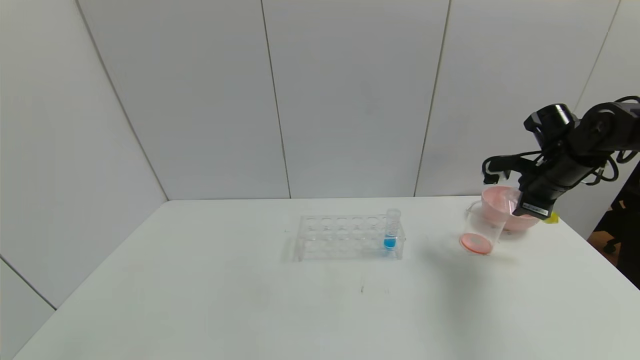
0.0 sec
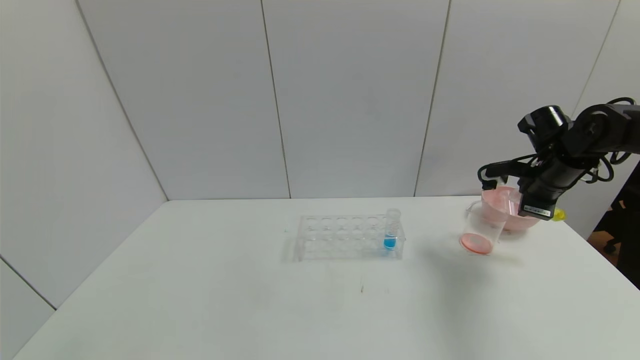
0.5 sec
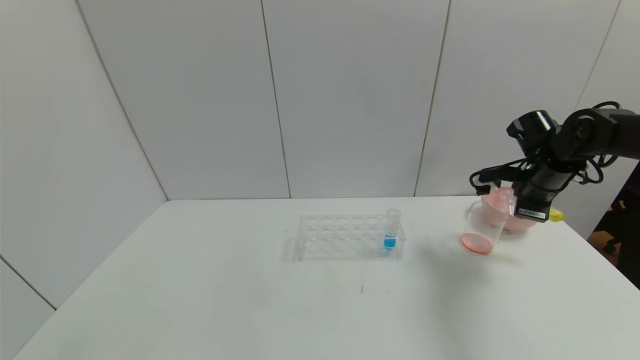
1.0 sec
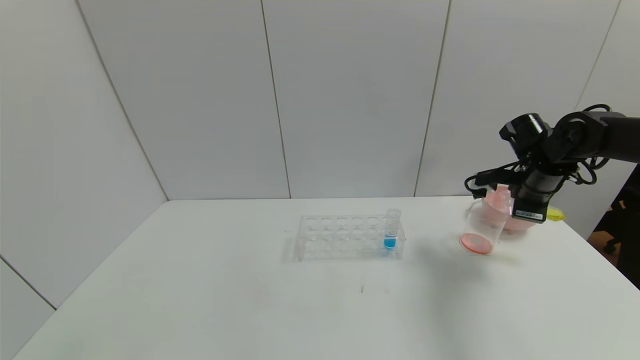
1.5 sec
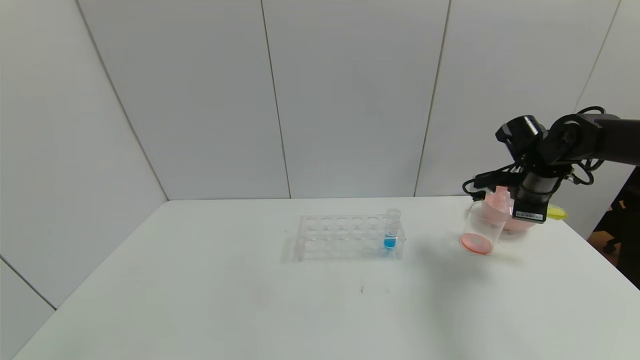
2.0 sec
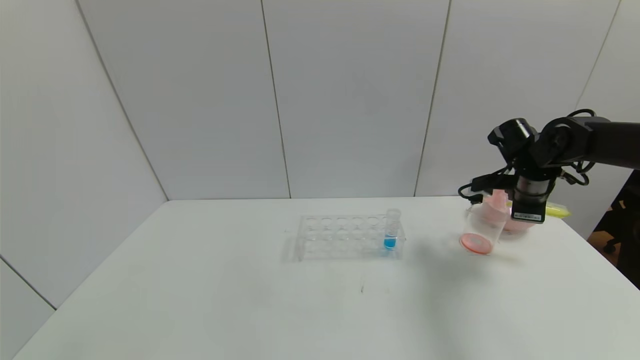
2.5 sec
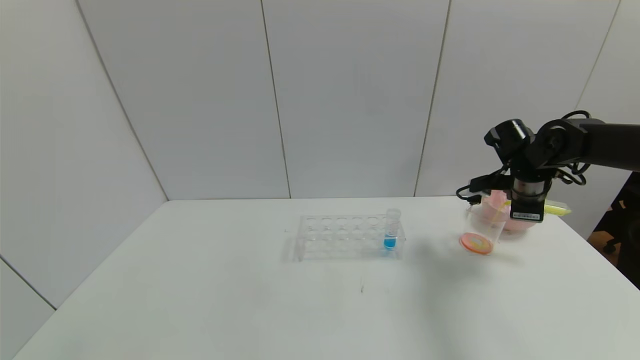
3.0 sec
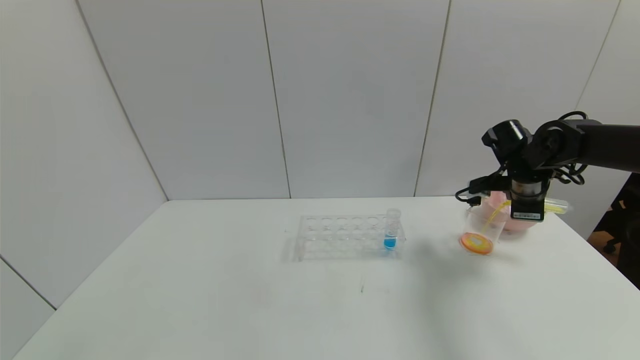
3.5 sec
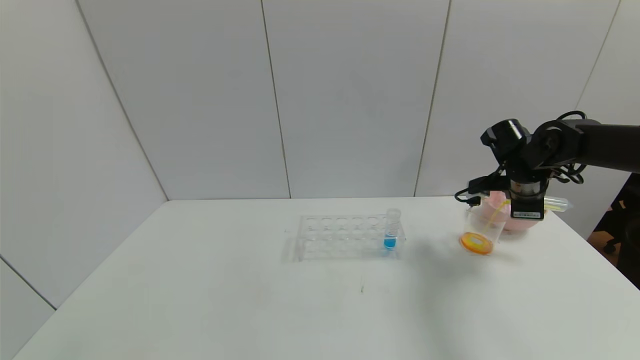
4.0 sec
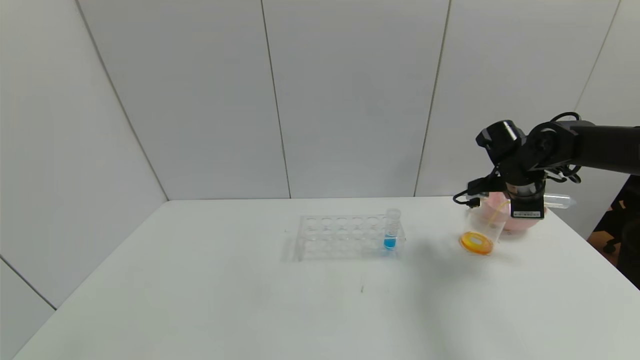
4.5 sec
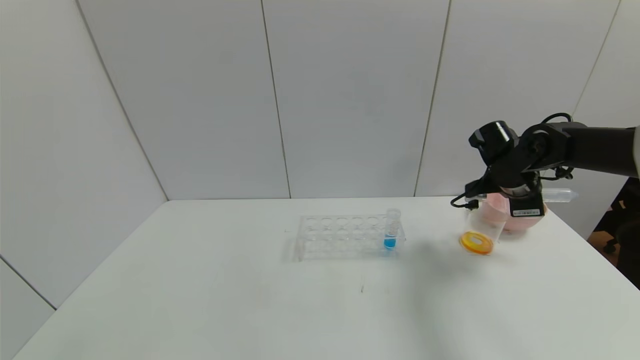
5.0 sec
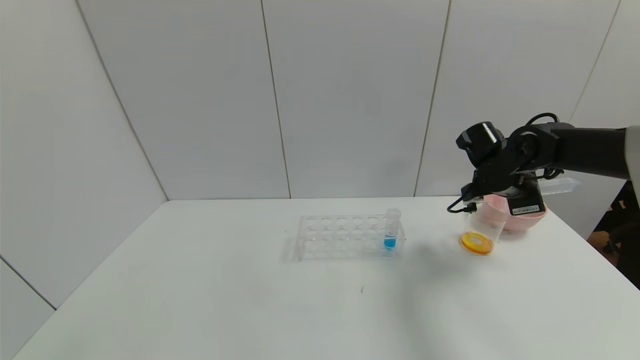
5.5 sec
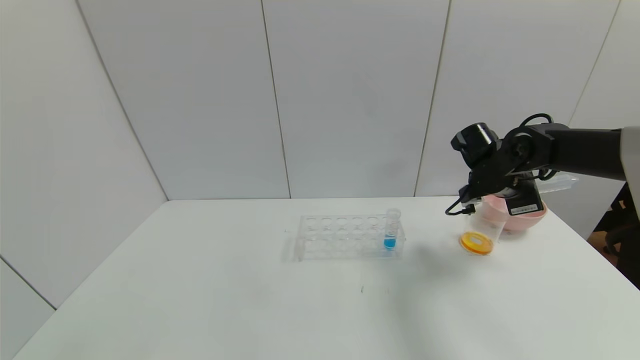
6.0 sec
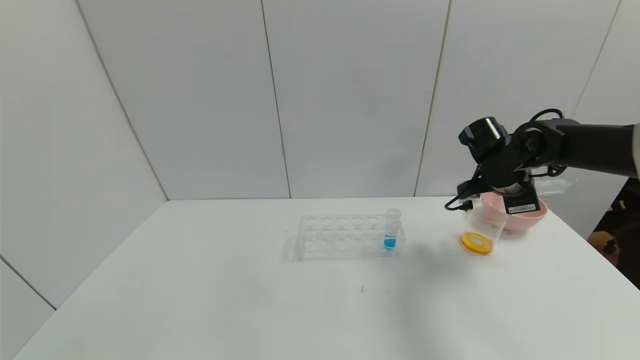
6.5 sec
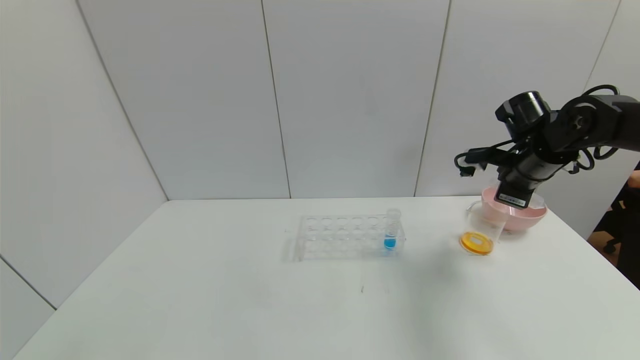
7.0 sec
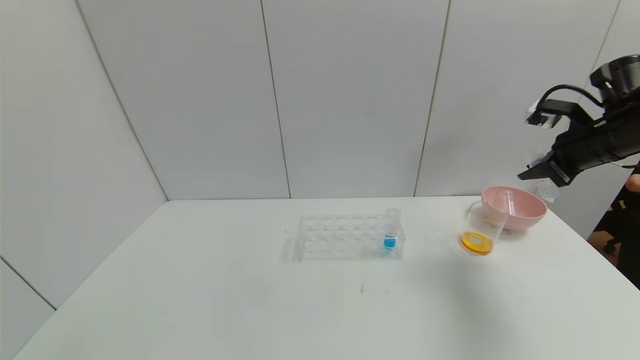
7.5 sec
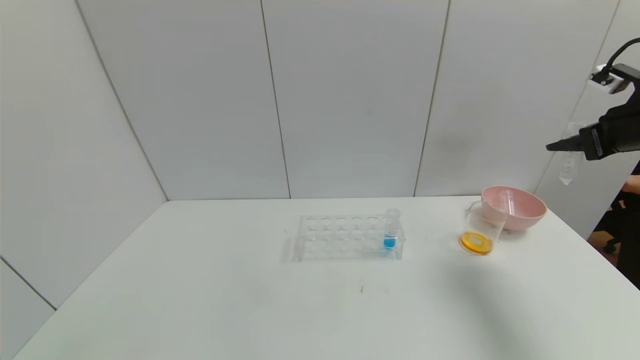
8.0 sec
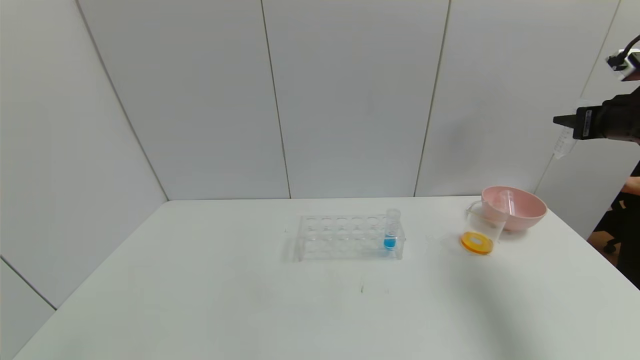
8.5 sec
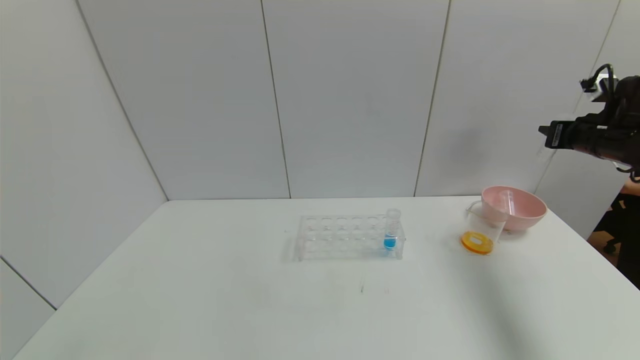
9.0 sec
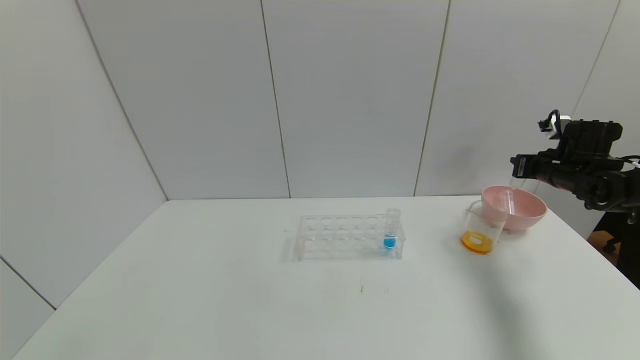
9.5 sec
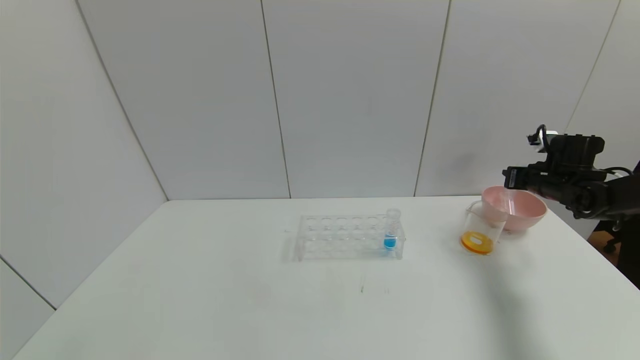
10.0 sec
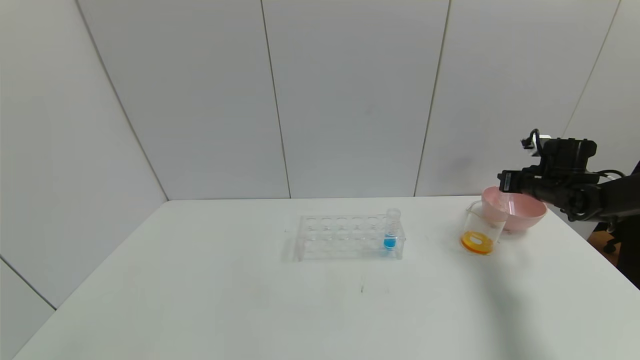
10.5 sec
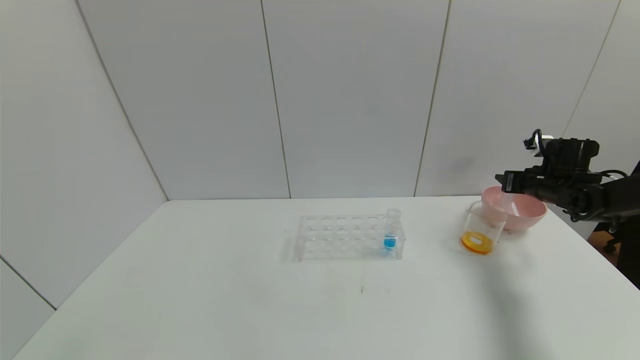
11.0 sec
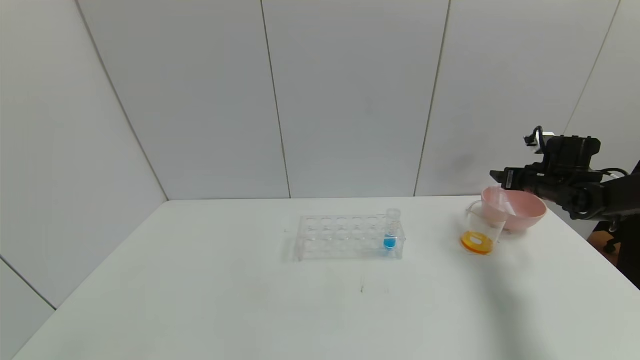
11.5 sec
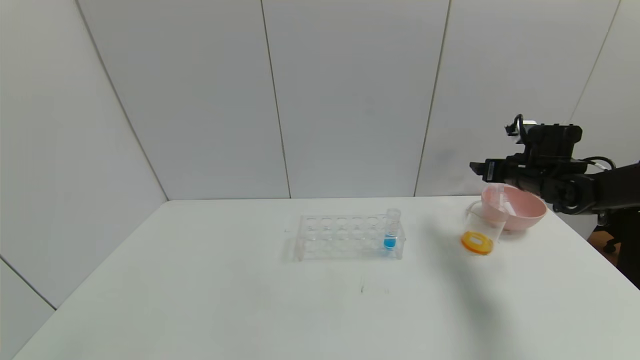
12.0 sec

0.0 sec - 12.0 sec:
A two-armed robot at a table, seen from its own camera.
Task of the whole recording: pick up the test tube with yellow pigment and the test tube with red pigment by grippers and pour them into the beaker.
Step, 0.0 sec - 5.5 sec: Pour the yellow reagent into the graduated cylinder with the right gripper.
Step, 6.0 sec - 11.0 sec: Place the test tube into the bowl with the right gripper.
0.0 sec - 2.0 sec: There are only small adjustments of the grippers.
2.0 sec - 4.0 sec: The grippers stay close to where they were, moving slightly.
6.0 sec - 8.0 sec: The right gripper shifts approximately 20 cm to the right, upward and backward.
8.0 sec - 10.0 sec: The right gripper travels downward and forward by some 20 cm.
10.0 sec - 12.0 sec: The right gripper heads to the left, covering roughly 5 cm, and opens.

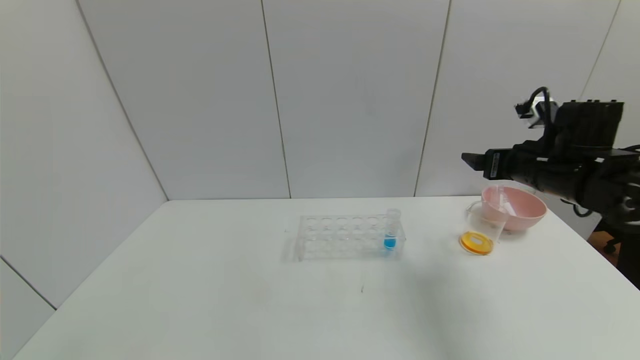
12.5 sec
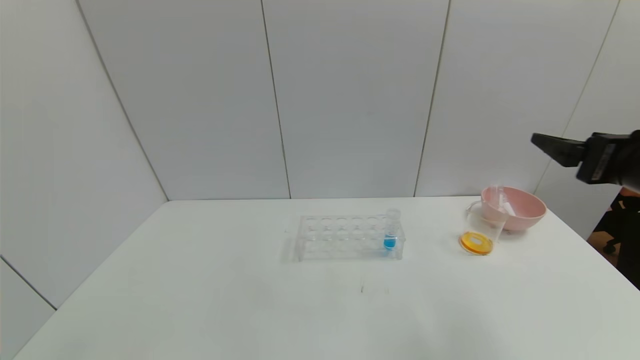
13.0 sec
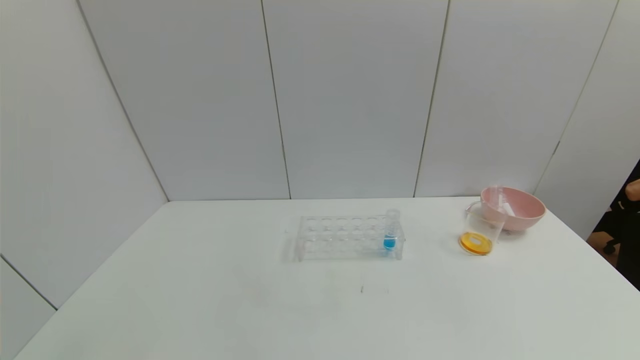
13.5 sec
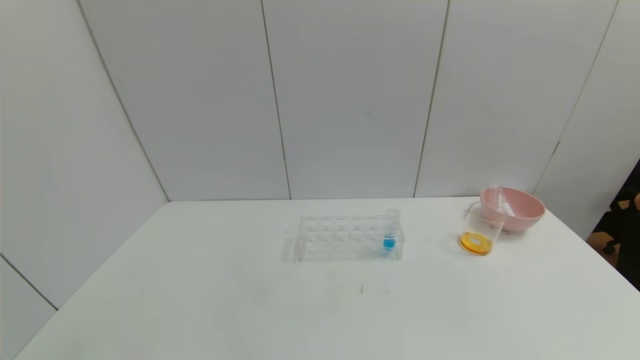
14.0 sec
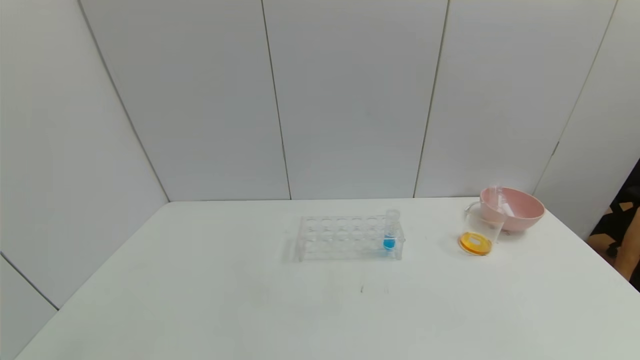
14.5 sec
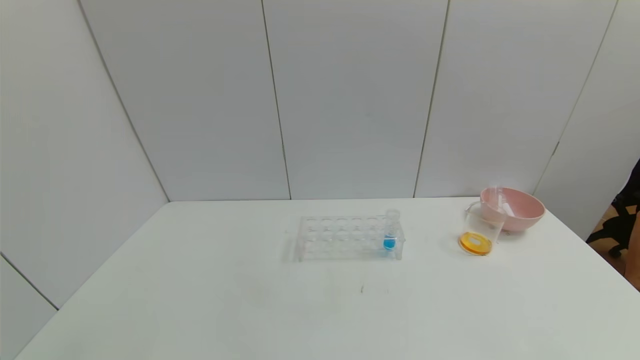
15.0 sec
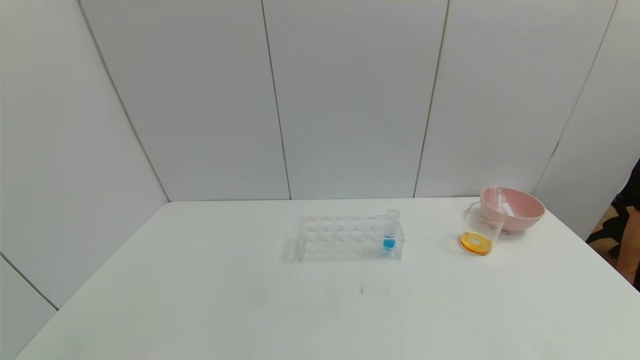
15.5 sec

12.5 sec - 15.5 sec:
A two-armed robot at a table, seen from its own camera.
Task of the whole recording: pick up the test tube with yellow pigment and the test tube with red pigment by grippers and pour them into the beaker.
12.5 sec - 14.0 sec: The right gripper is displaced backward by about 40 cm.
14.0 sec - 15.5 sec: The right gripper shifts roughly 15 cm downward.
